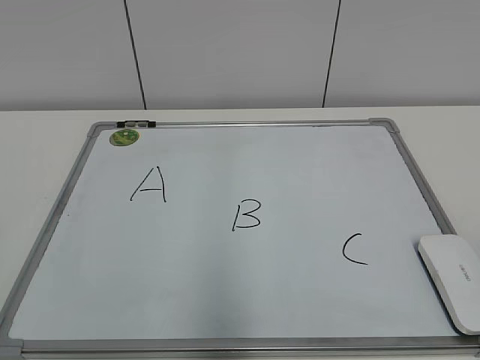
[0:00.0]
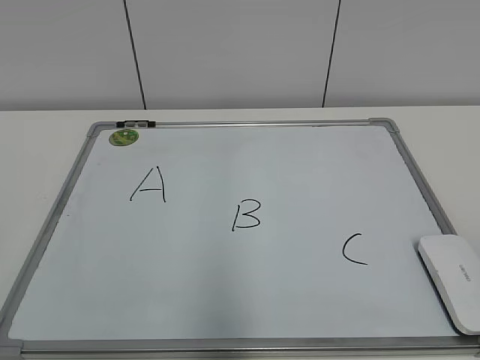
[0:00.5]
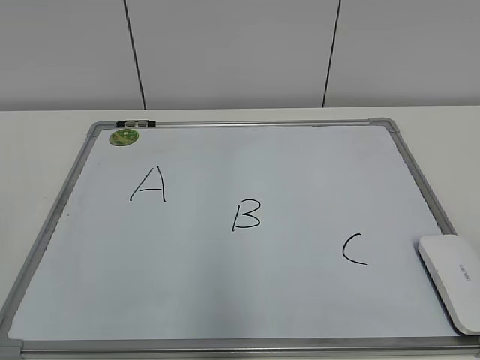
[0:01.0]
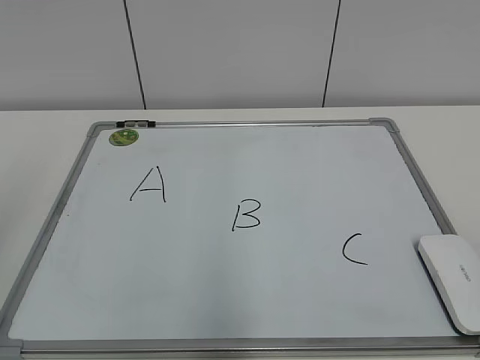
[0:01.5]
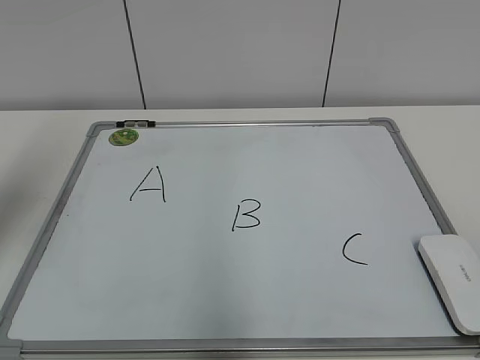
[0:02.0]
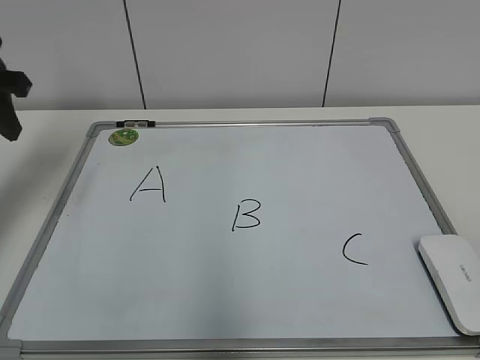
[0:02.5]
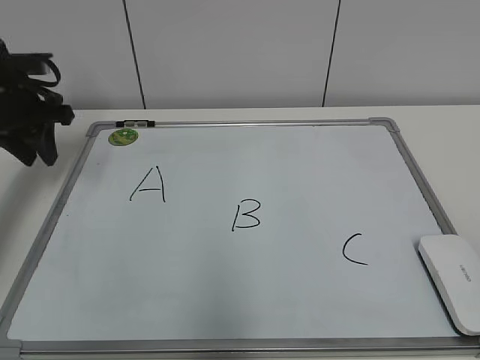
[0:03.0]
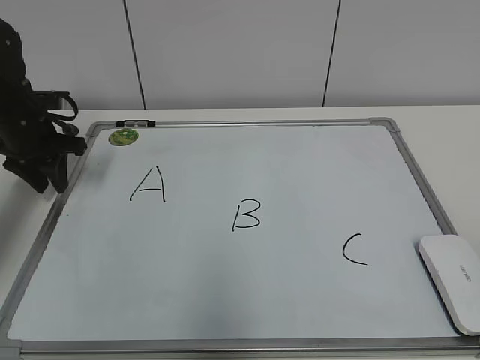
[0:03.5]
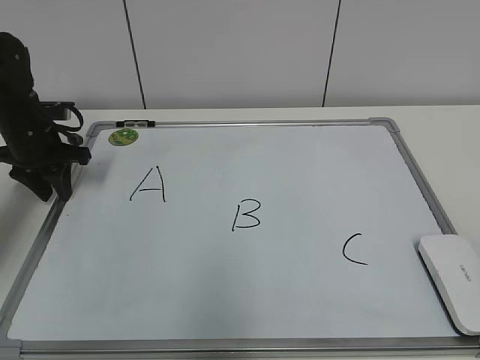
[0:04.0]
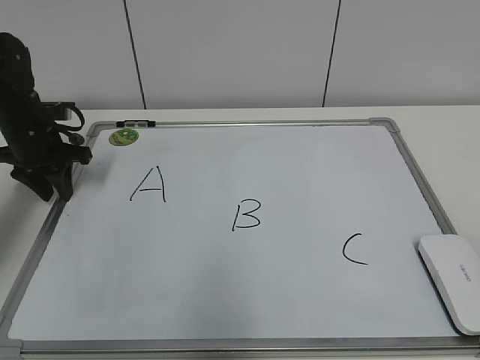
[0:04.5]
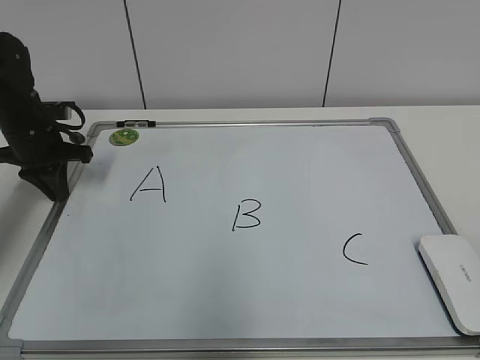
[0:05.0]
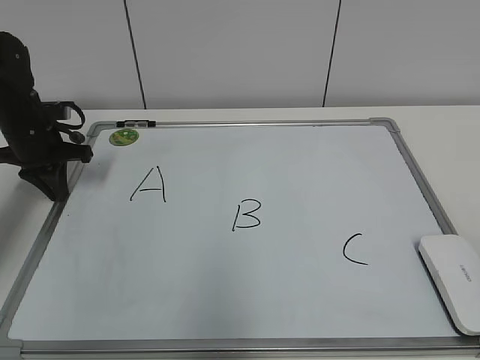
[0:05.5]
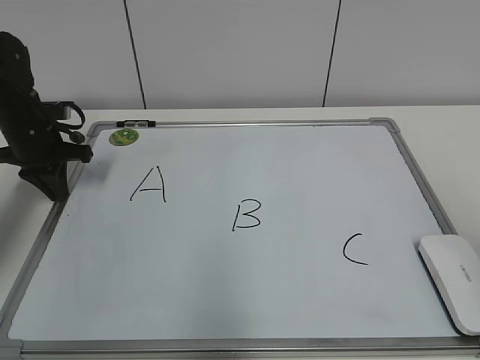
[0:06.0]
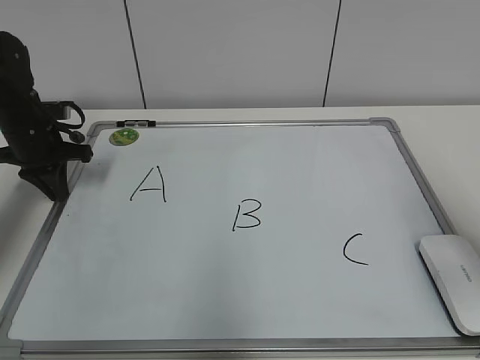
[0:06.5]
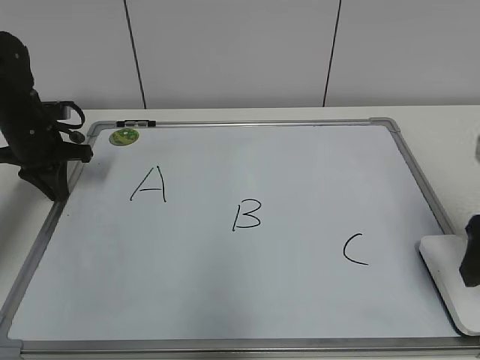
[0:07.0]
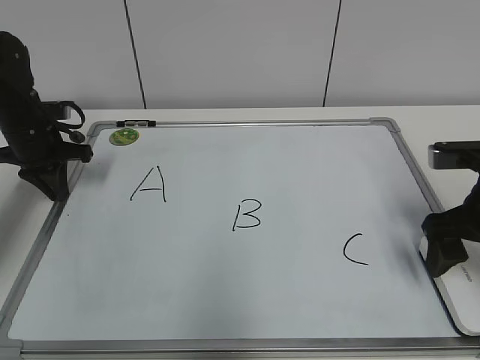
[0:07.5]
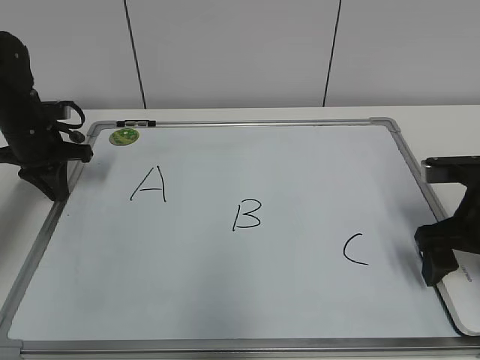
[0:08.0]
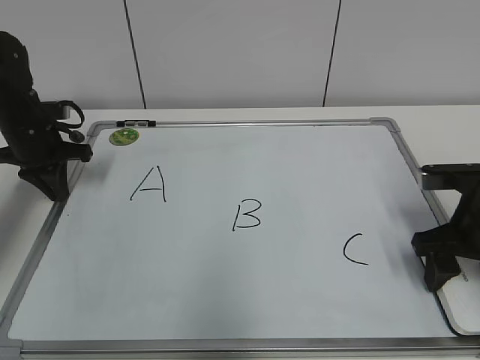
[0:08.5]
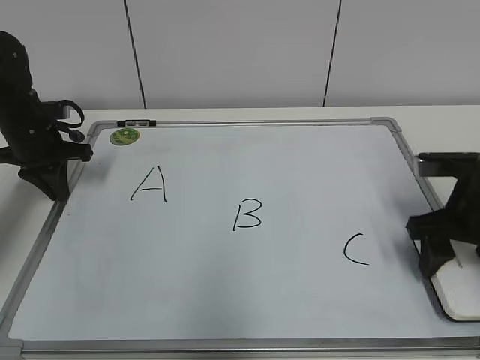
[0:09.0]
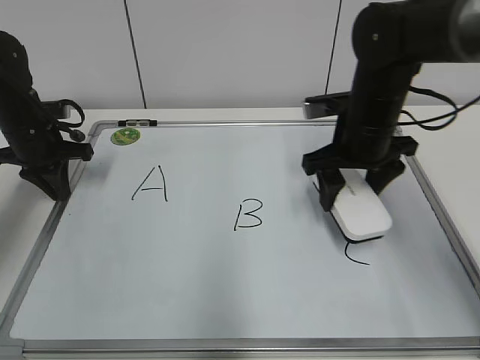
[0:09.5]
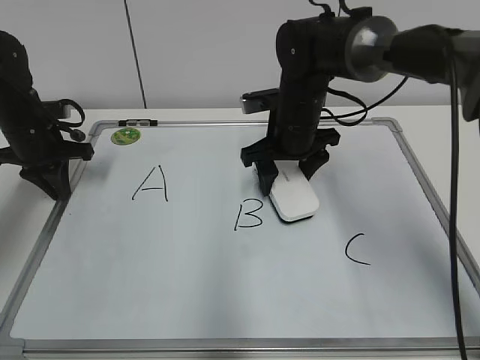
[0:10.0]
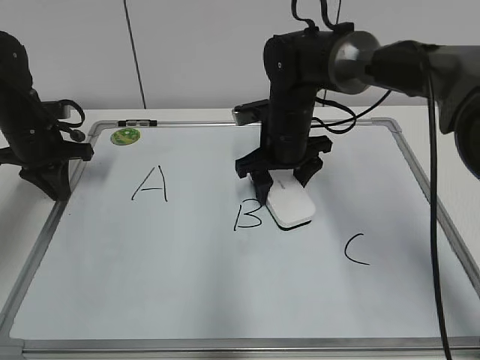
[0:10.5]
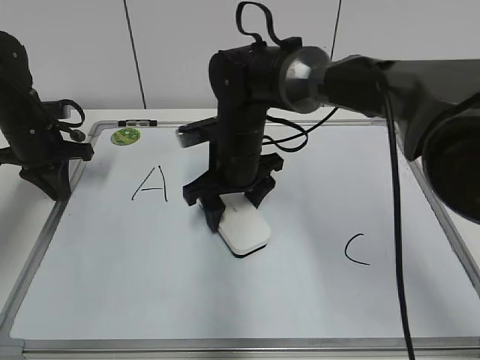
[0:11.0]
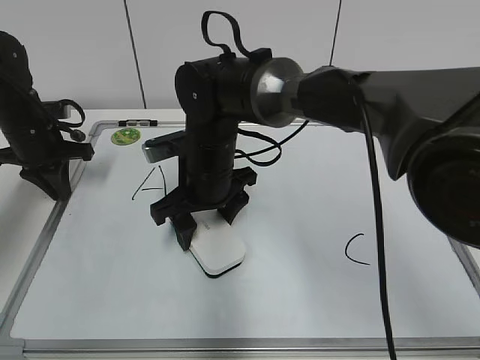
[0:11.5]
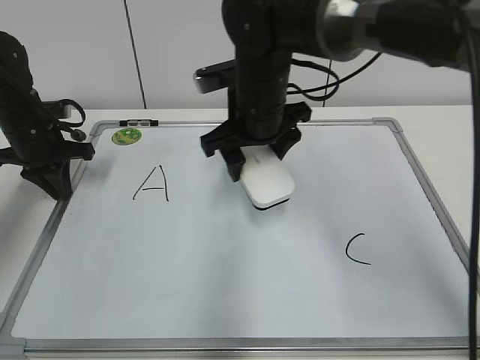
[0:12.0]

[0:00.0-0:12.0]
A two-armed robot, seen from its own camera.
Task of the whole recording: pick up the eraser on the blackboard and erase the letter "B".
Step, 0:00.0 to 0:04.5: Hold the drawing board steady with your left hand.
Step, 0:05.0 to 0:08.5: Grab the eraser with your right hand.
Step, 0:09.0 to 0:11.5: Erase the letter B with your right hand.
0:02.0 to 0:04.0: The left gripper goes roughly 30 cm forward and downward.
0:04.0 to 0:06.0: The left gripper closes.
0:06.0 to 0:08.0: The right gripper goes some 25 cm forward and downward, and opens.
0:08.0 to 0:10.0: The right gripper is displaced to the left and forward by roughly 25 cm, and closes up.
0:10.0 to 0:12.0: The right gripper travels to the left by about 5 cm.

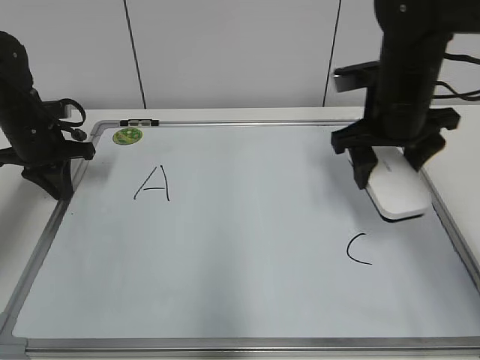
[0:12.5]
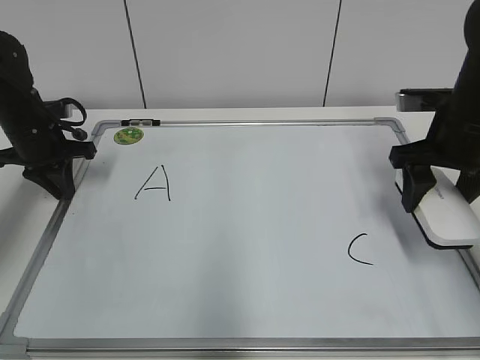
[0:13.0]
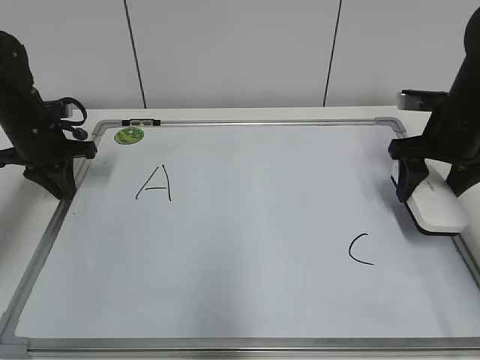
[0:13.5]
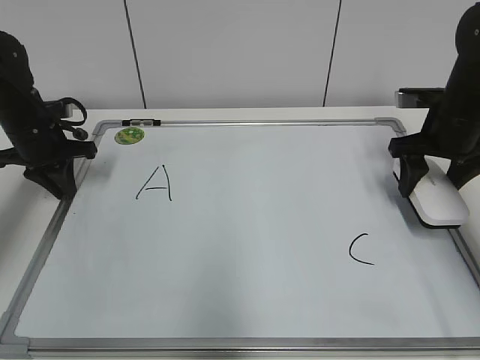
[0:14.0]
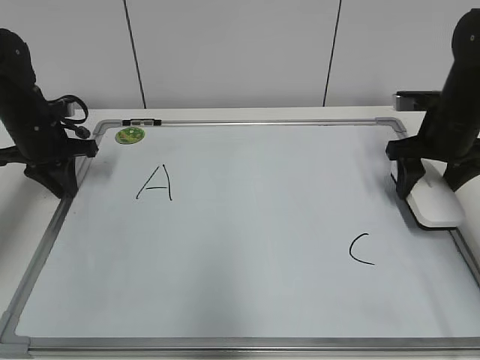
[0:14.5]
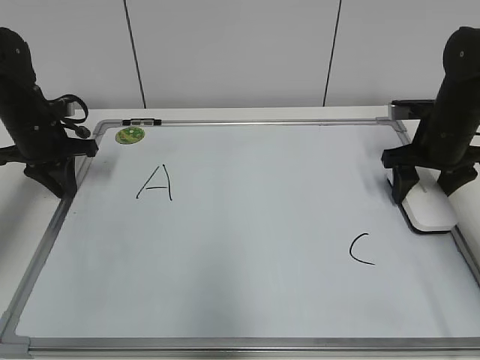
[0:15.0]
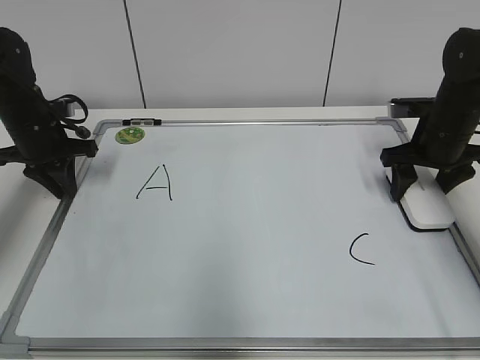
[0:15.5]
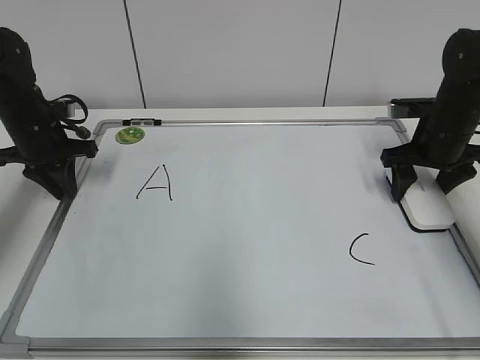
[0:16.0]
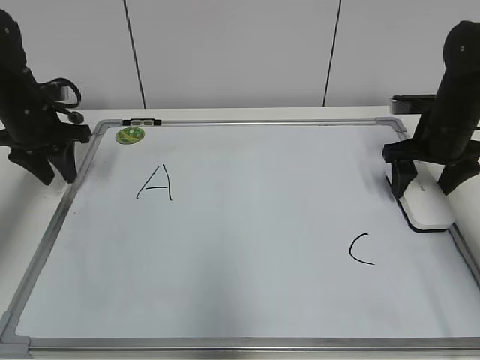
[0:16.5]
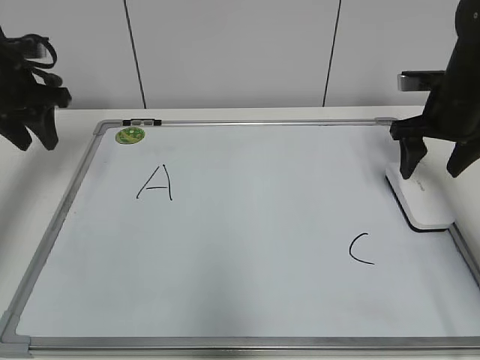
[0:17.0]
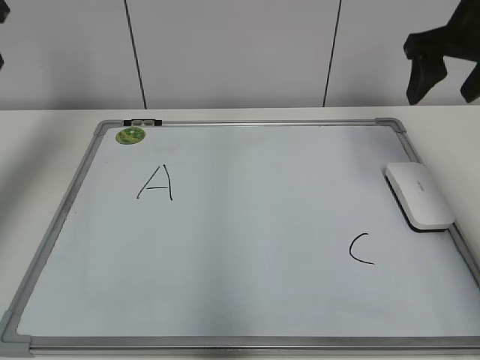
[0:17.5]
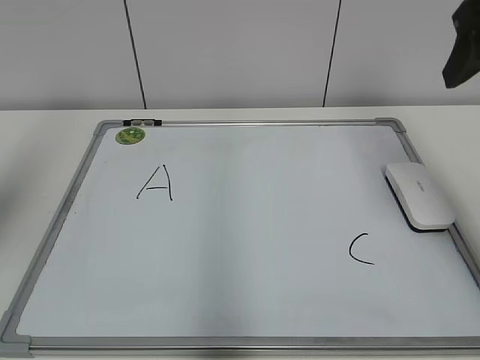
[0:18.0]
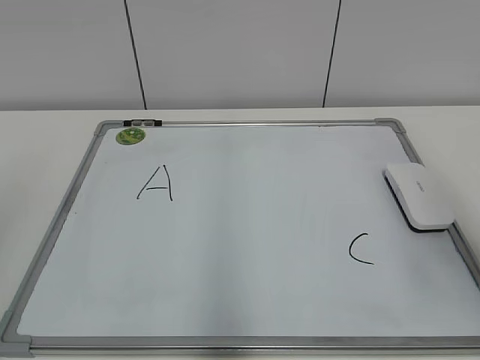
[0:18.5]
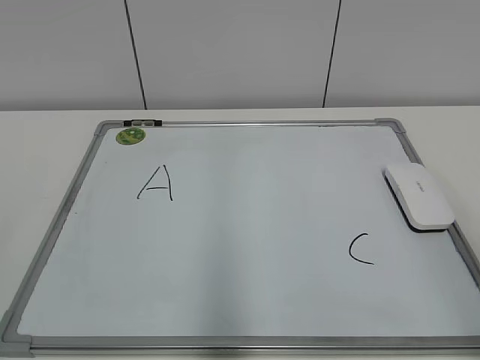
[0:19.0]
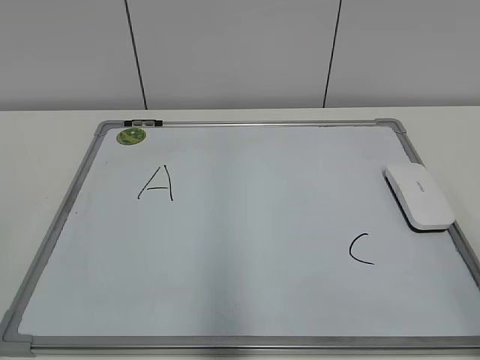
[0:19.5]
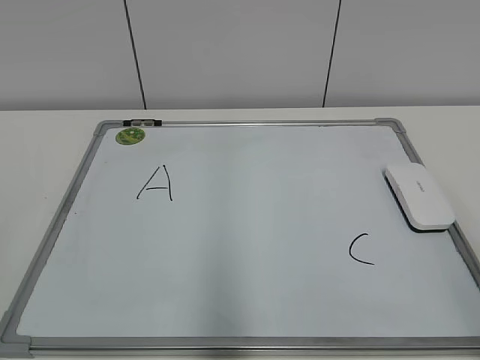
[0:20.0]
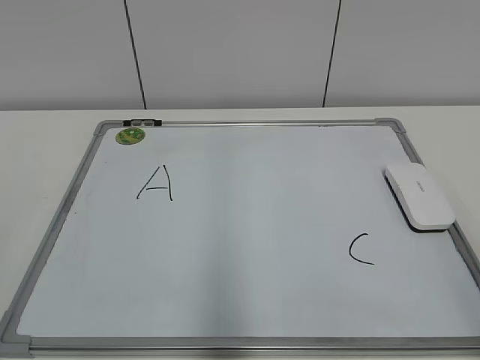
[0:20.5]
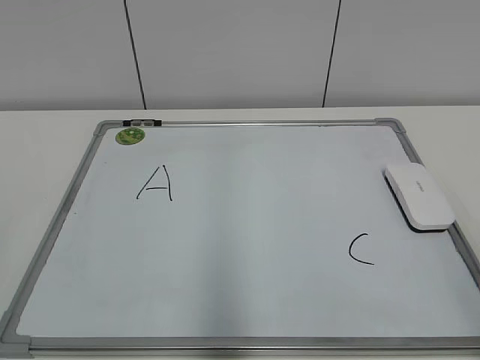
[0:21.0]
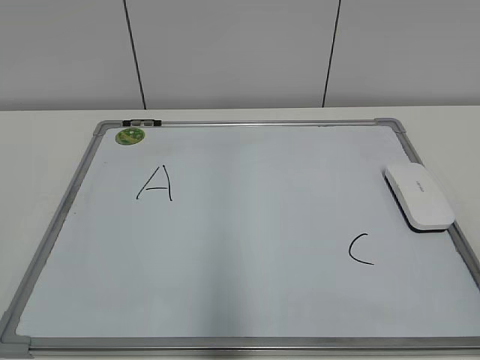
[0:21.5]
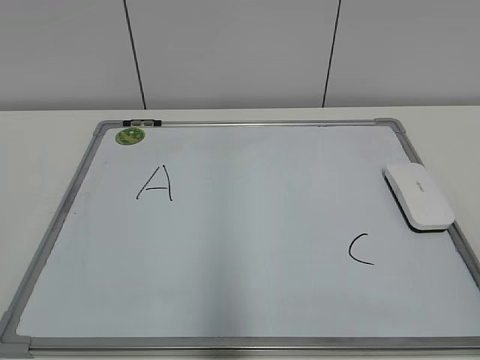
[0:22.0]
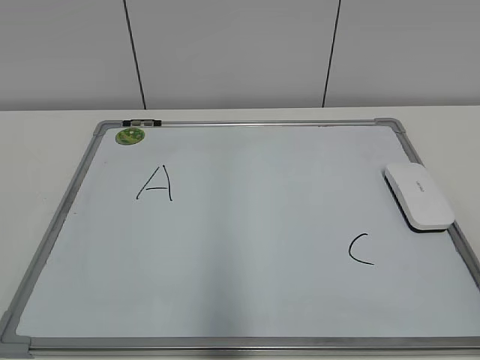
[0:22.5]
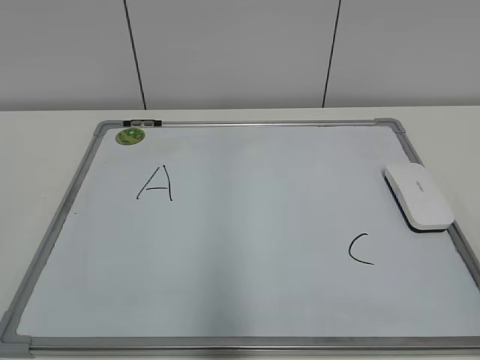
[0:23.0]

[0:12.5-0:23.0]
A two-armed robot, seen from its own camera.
Task of the whole recording: pick up the eraser on the blackboard and erase the letter "B".
0:12.5 to 0:14.5: The right gripper goes roughly 10 cm to the right and downward.
0:14.5 to 0:16.5: The right gripper opens, while the left gripper opens its fingers.
0:16.5 to 0:19.0: Both grippers move backward, about 40 cm.
